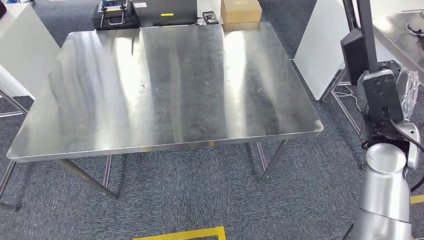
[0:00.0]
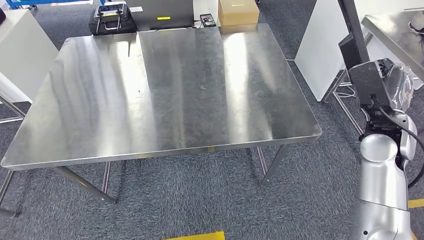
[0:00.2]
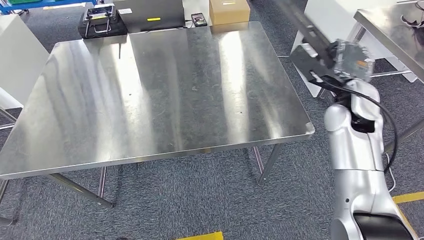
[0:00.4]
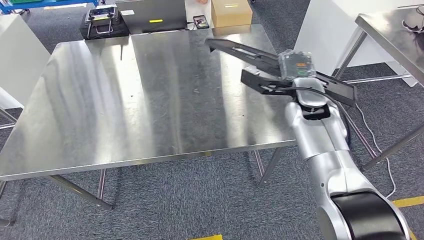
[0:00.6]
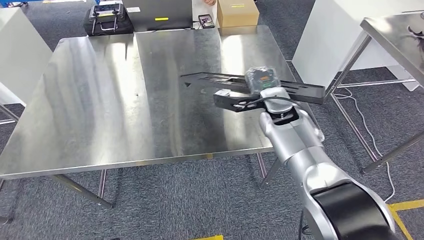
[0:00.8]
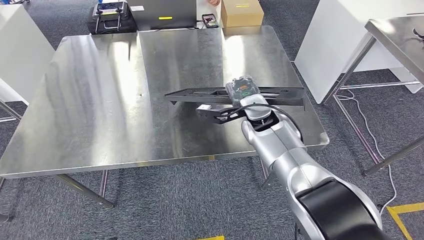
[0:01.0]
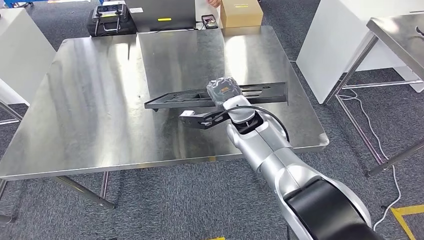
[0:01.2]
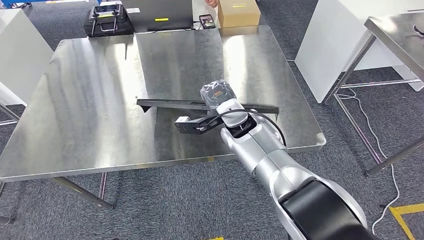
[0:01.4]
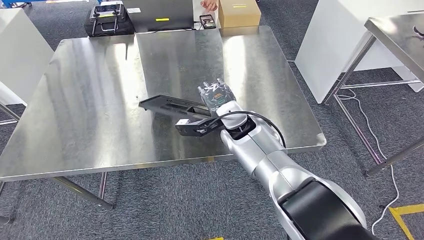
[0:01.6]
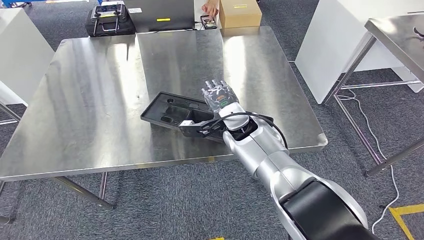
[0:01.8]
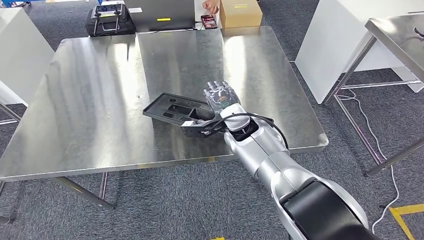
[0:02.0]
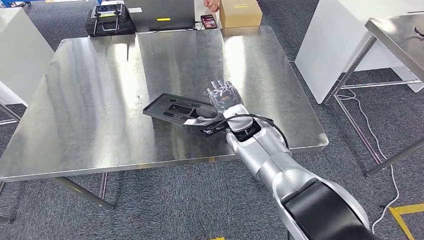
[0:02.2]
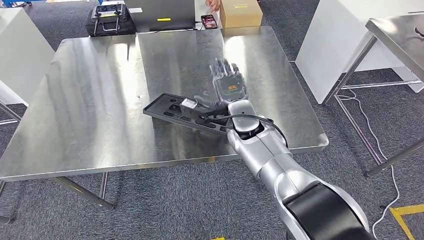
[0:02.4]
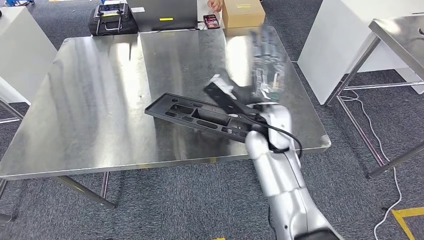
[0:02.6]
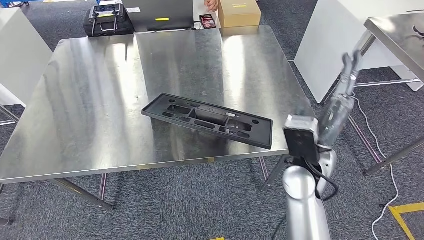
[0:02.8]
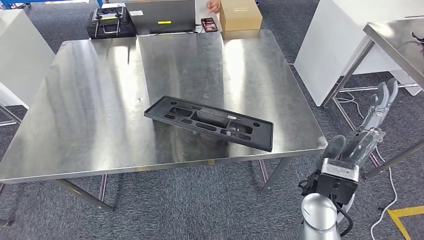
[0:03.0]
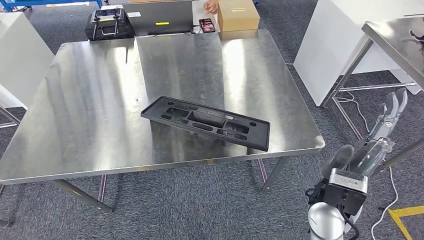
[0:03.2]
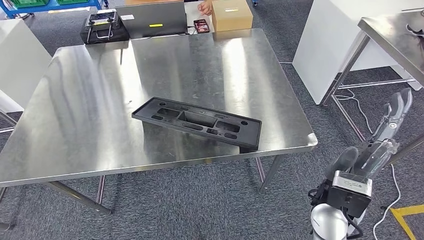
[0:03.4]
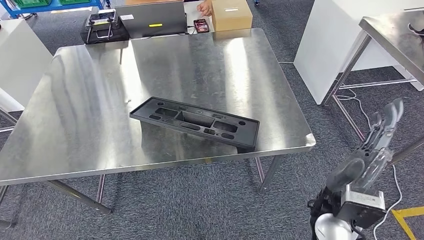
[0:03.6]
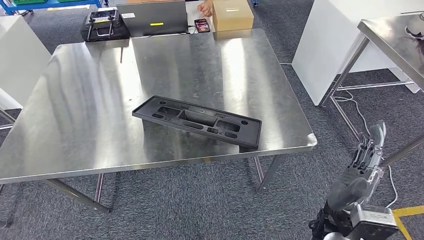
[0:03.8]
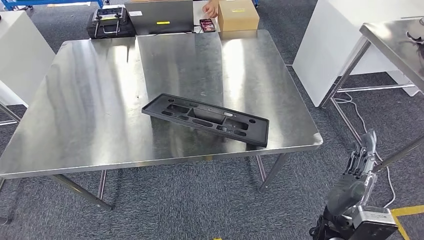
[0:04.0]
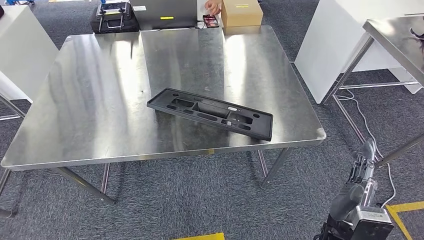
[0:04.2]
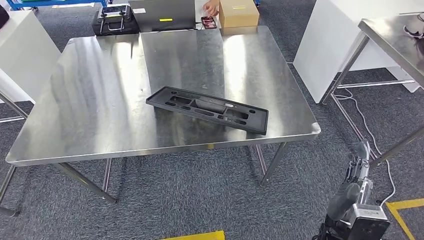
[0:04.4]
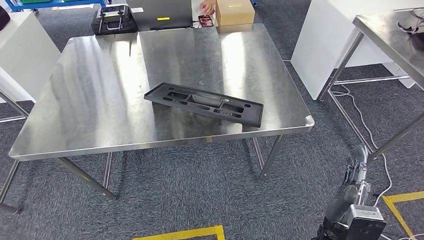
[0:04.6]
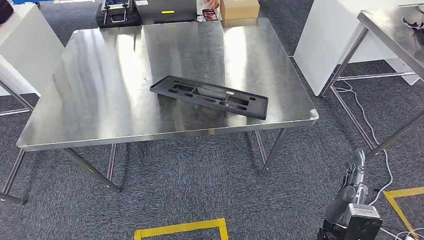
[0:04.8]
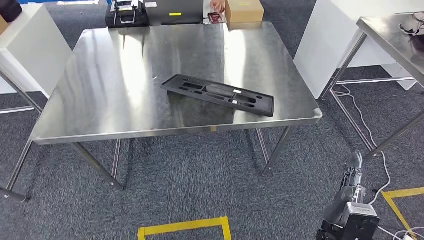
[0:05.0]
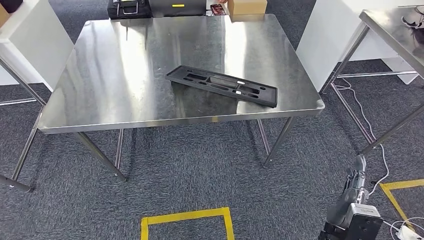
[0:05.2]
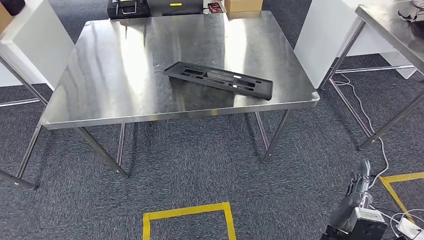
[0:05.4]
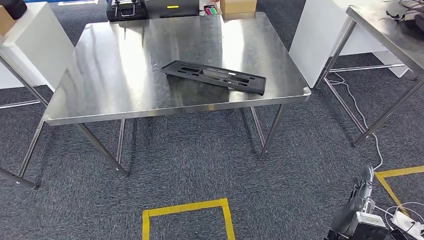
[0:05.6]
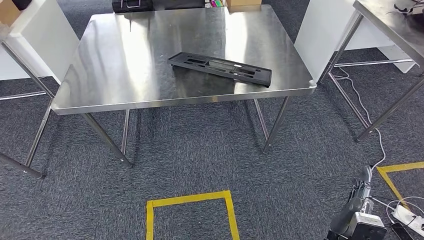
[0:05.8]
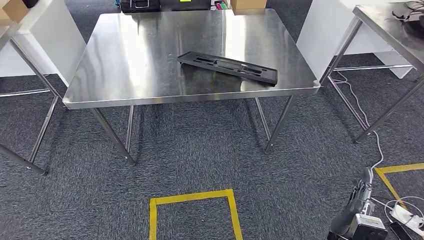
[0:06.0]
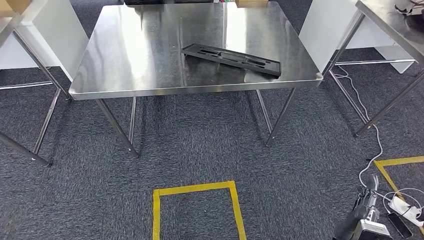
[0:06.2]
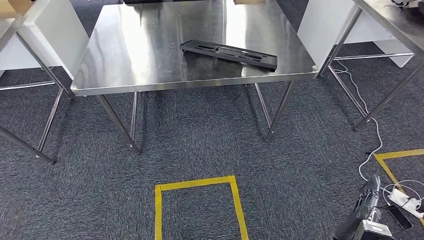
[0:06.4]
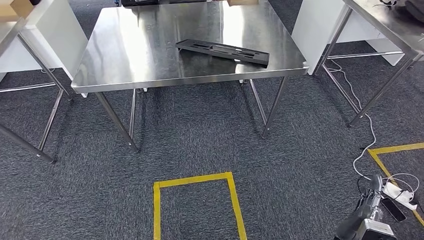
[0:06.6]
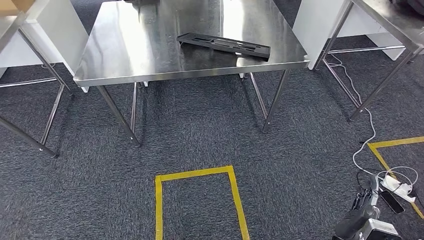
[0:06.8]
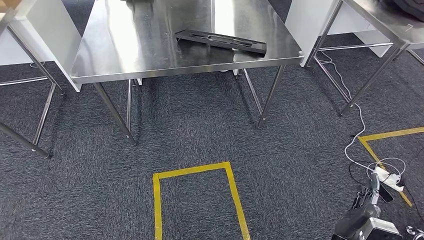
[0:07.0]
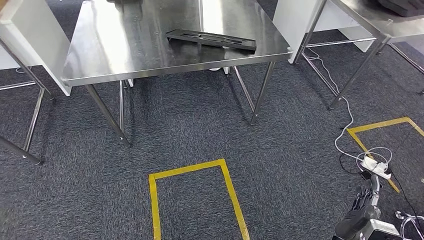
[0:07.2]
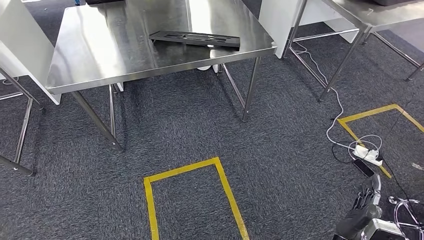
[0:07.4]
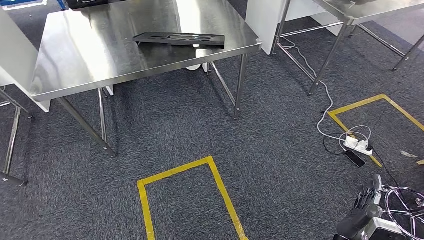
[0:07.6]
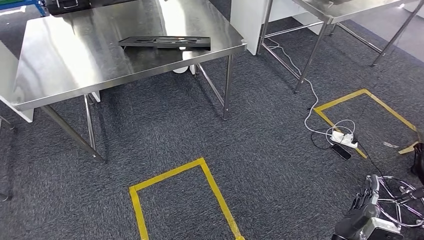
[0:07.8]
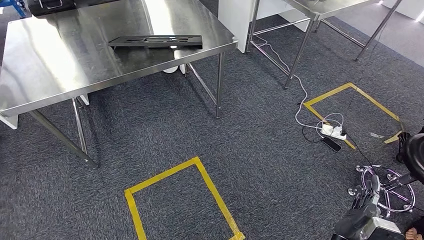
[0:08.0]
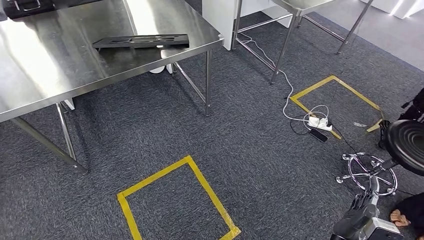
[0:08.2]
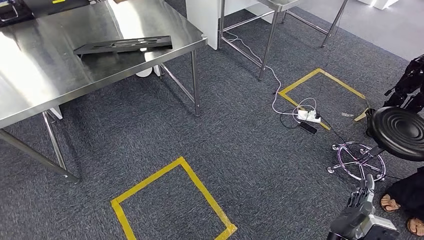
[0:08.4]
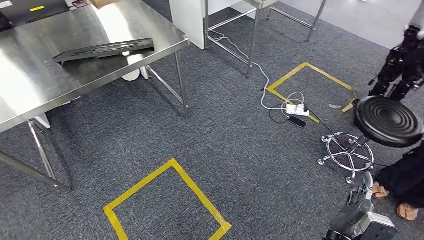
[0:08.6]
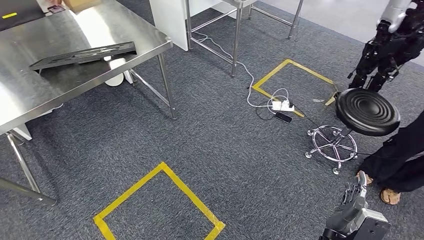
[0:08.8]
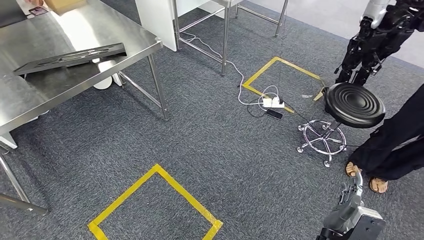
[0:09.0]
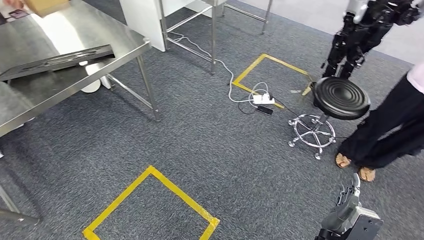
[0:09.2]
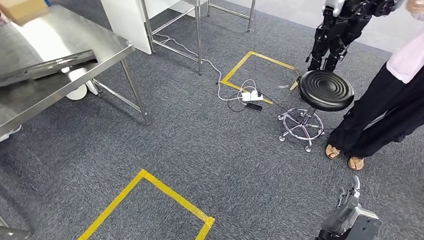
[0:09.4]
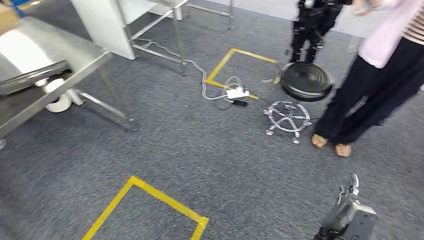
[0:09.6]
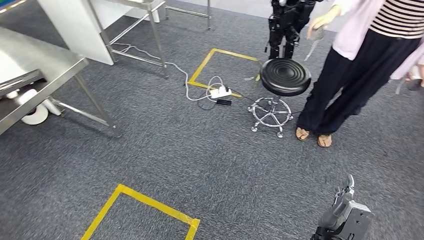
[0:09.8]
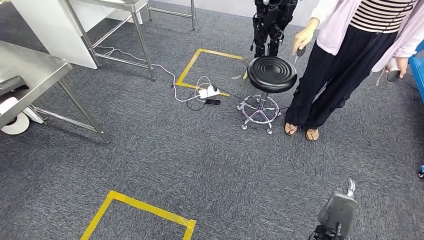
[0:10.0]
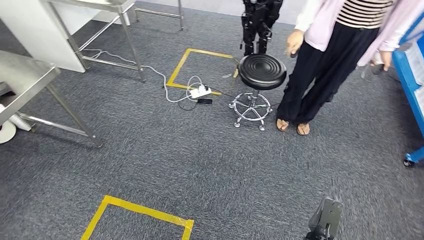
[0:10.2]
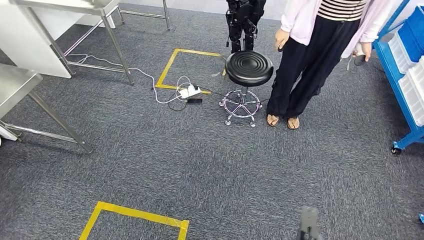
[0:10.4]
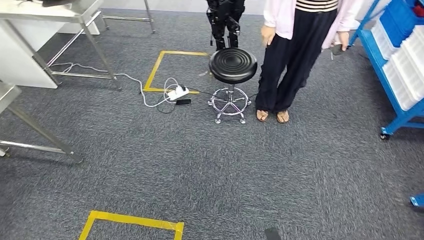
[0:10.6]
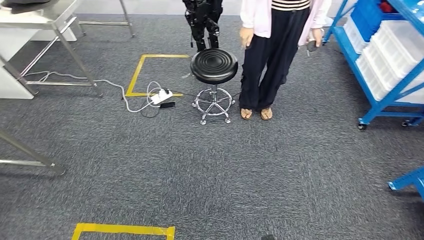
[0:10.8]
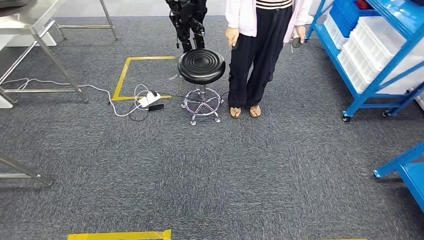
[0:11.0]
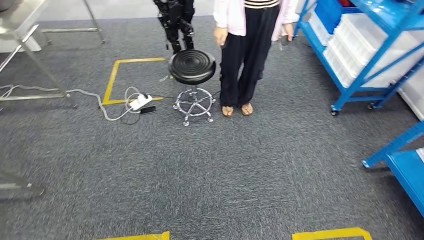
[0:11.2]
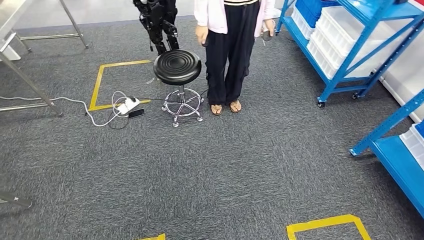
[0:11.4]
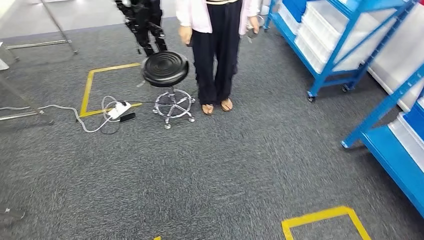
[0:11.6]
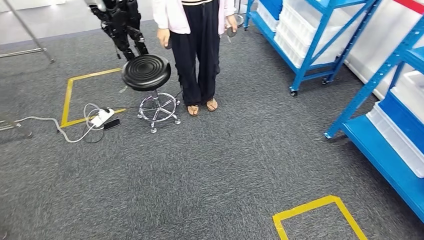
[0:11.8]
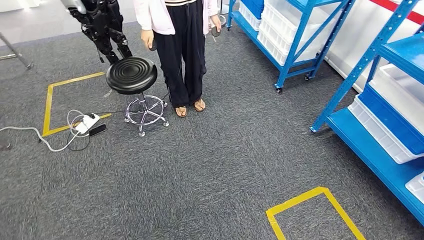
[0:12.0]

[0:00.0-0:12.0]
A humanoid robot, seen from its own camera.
Step, 0:00.0 to 0:06.4: Insert the large material into the corresponding slot on the workbench.

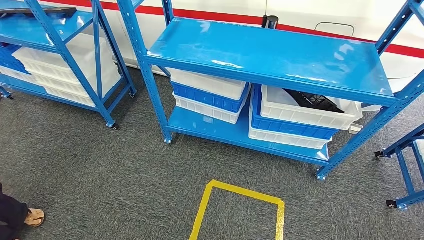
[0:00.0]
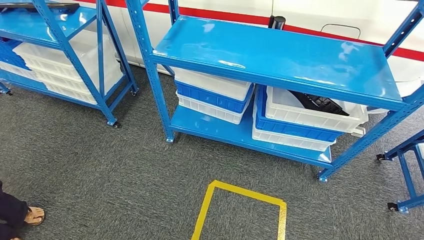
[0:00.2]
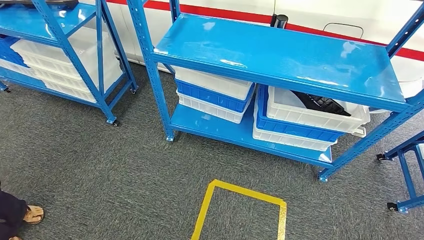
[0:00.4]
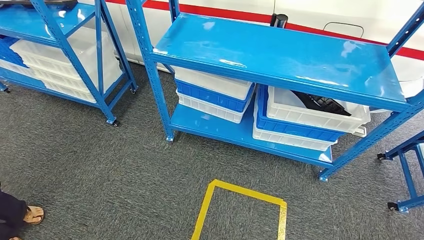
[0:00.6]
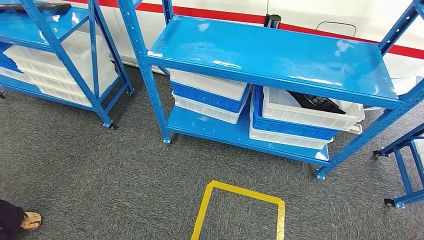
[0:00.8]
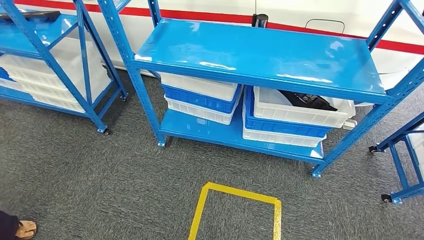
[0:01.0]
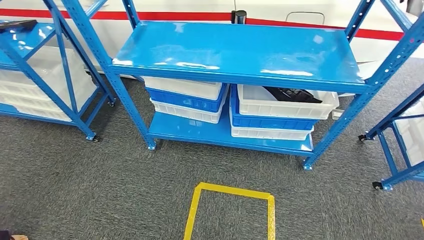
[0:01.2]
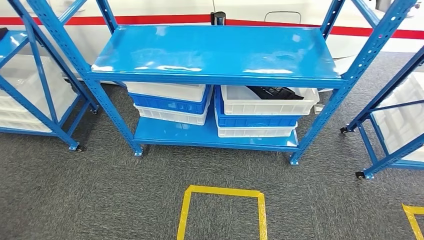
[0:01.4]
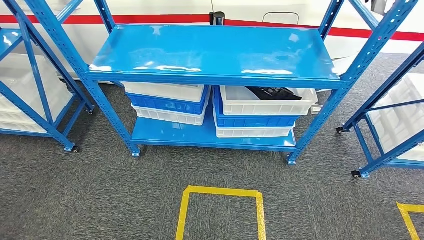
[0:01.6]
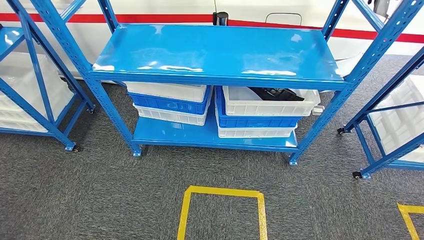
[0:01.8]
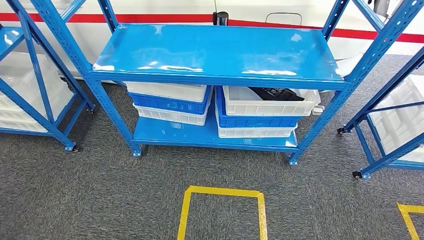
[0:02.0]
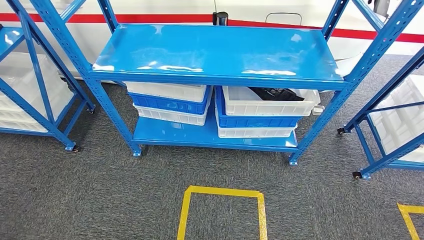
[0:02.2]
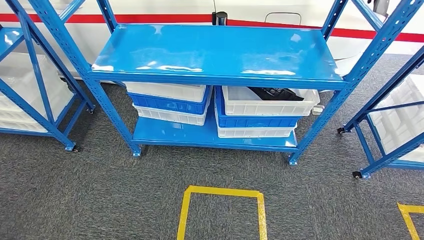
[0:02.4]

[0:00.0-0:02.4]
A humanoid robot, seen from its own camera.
Step, 0:00.0 to 0:02.4: Return to the initial position at the shelf.

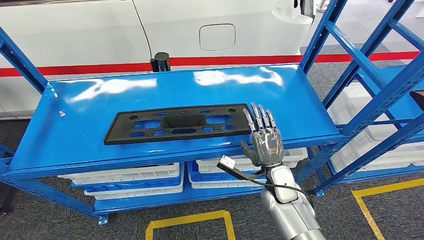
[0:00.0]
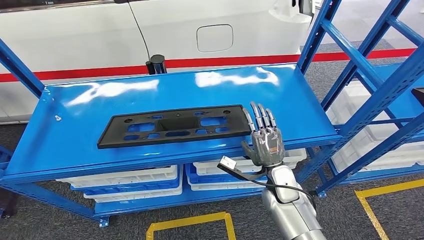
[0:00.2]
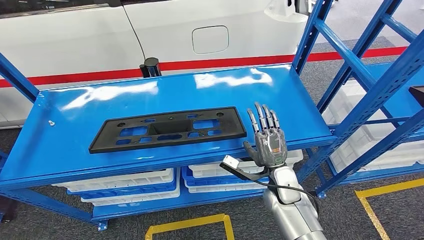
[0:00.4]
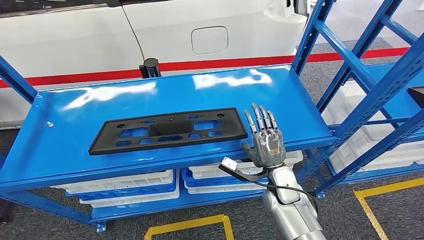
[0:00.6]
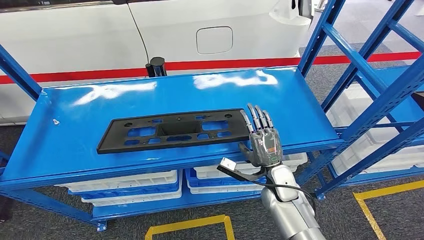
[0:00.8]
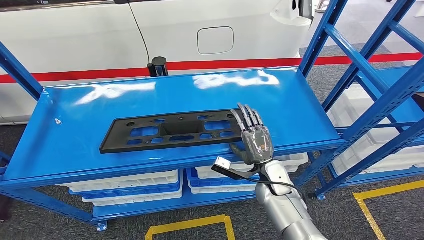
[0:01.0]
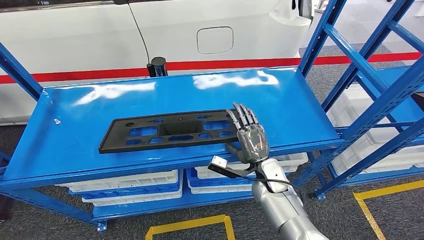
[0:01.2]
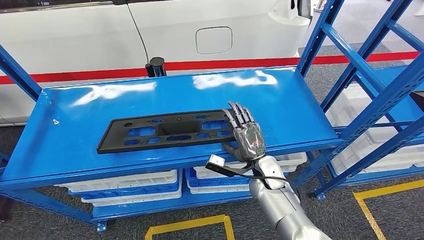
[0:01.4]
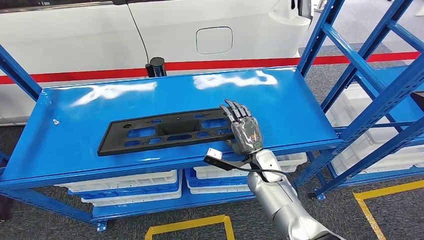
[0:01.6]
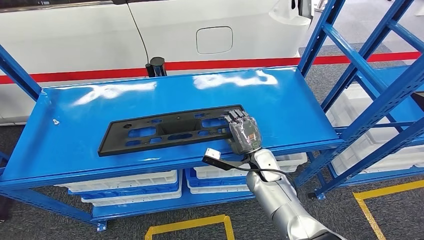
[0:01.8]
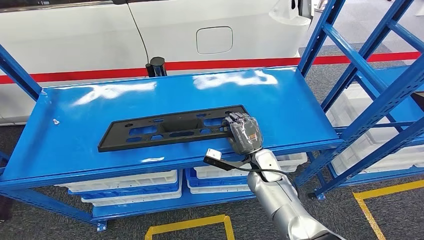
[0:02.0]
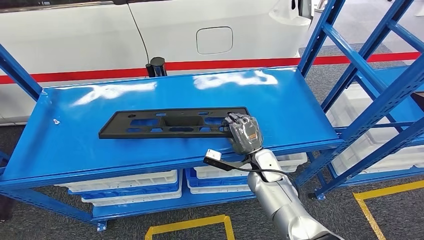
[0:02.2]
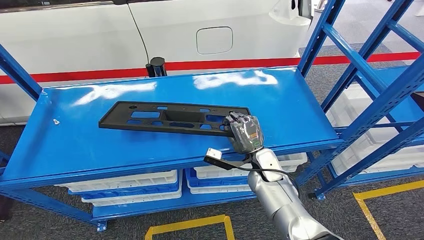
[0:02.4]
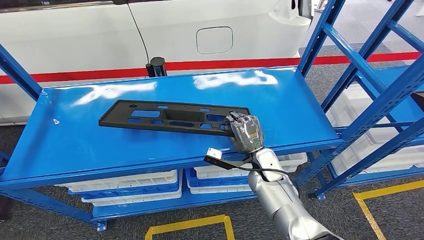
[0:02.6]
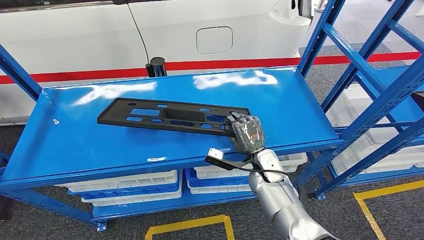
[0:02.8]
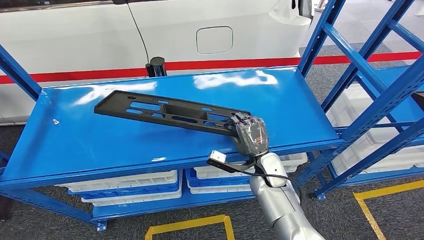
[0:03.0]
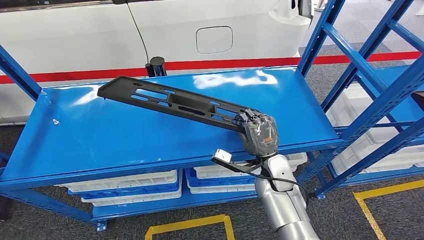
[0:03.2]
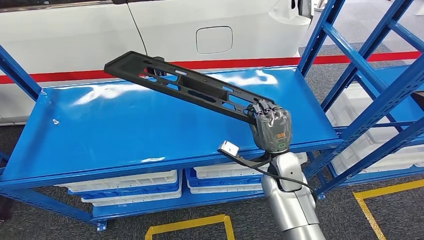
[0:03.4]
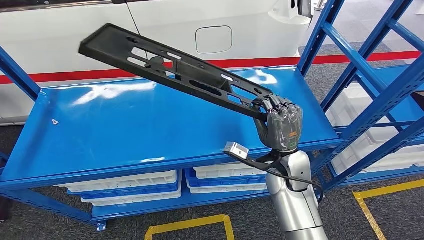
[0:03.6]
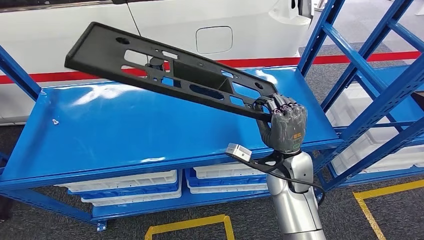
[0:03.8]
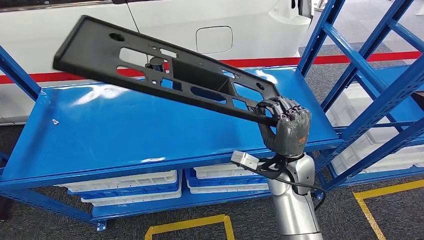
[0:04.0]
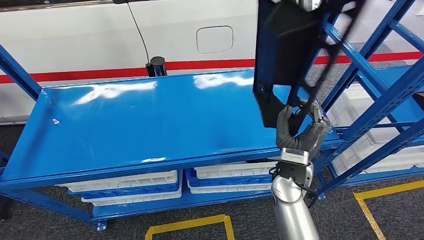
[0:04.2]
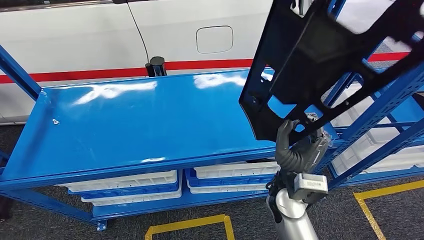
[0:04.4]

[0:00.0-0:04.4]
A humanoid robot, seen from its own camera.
0:01.4 to 0:03.0: The hands make only small movements.
